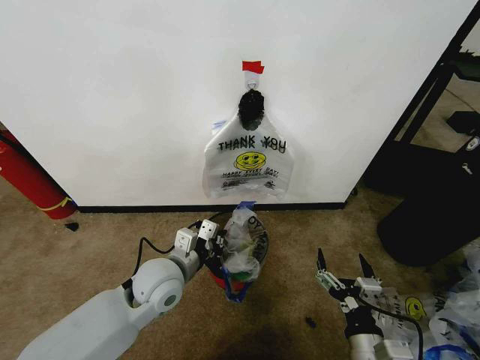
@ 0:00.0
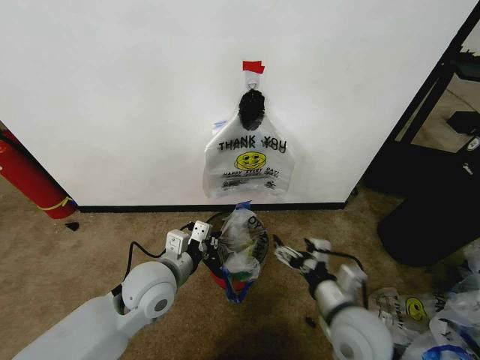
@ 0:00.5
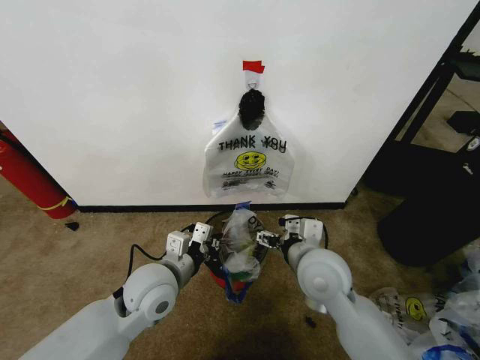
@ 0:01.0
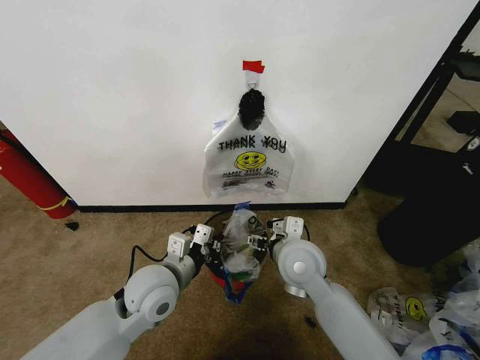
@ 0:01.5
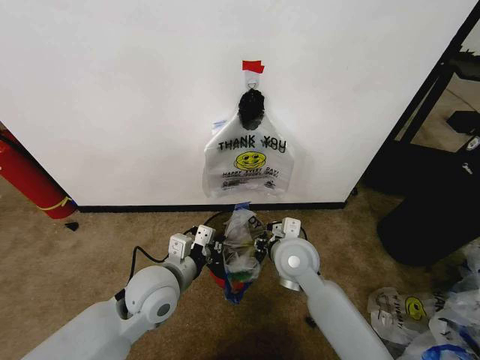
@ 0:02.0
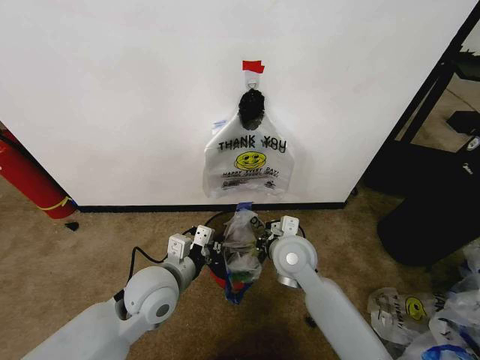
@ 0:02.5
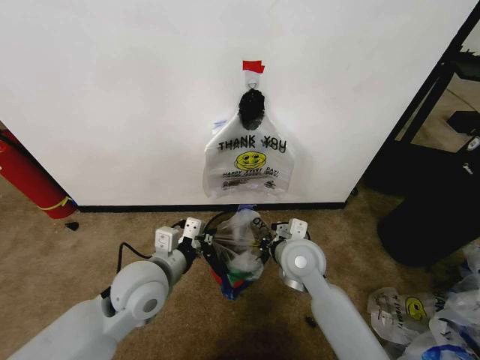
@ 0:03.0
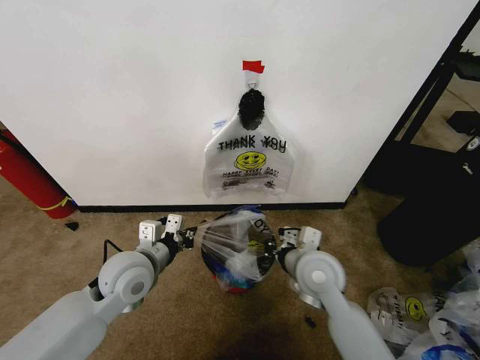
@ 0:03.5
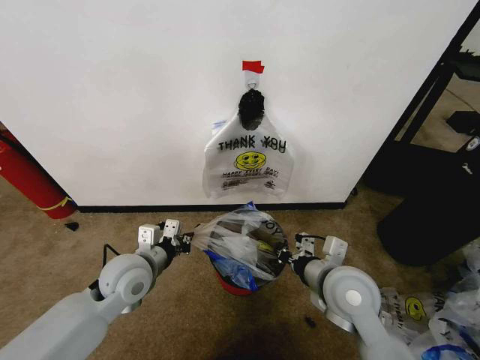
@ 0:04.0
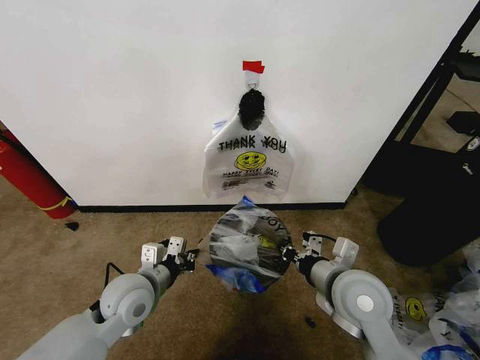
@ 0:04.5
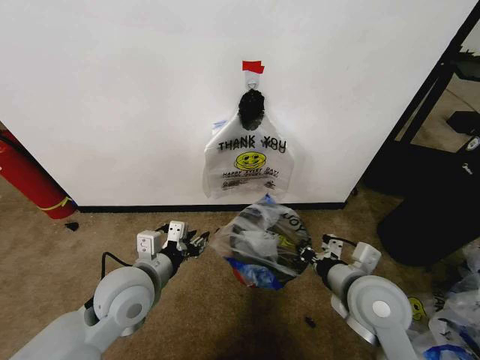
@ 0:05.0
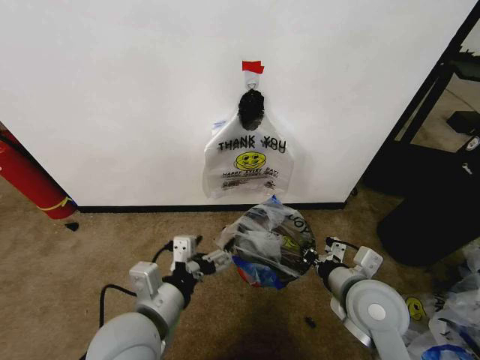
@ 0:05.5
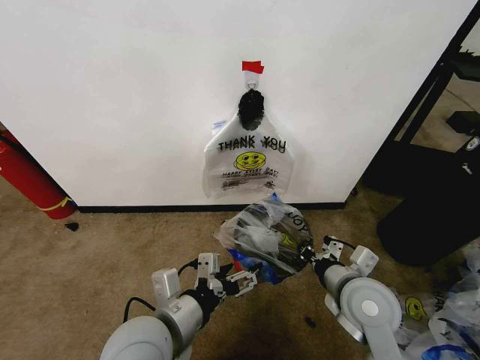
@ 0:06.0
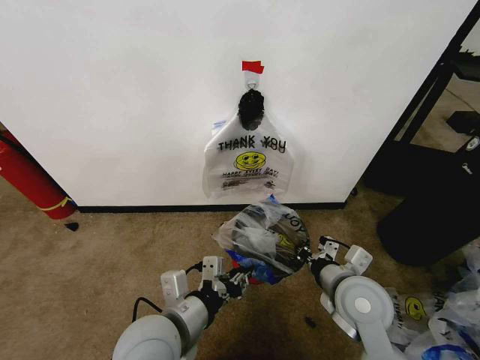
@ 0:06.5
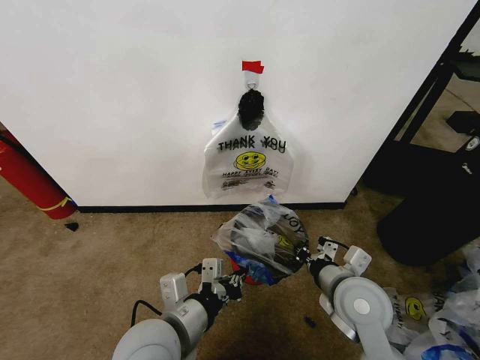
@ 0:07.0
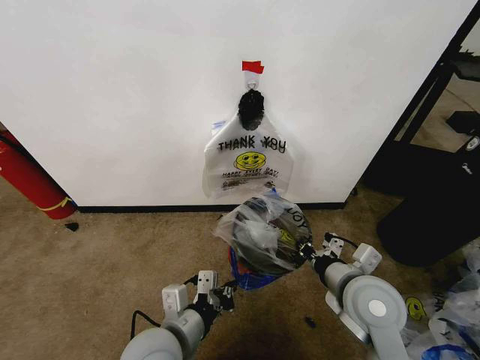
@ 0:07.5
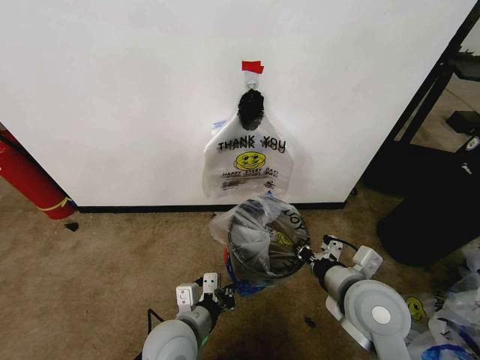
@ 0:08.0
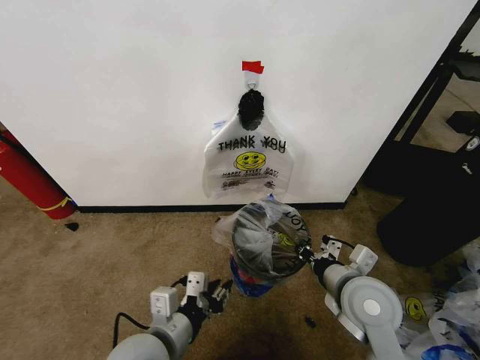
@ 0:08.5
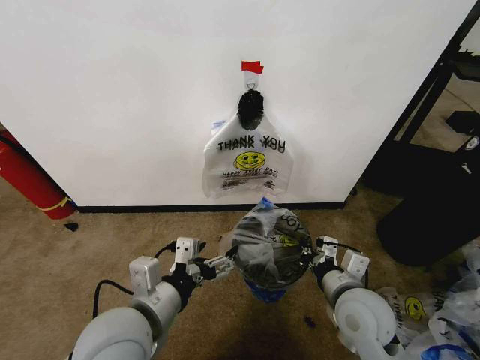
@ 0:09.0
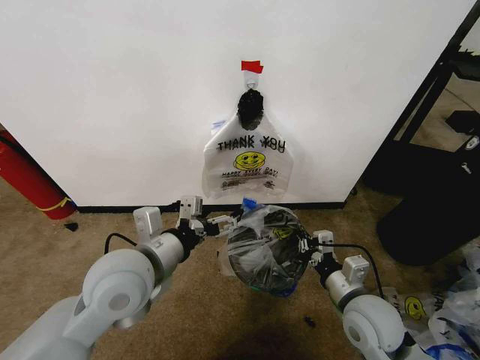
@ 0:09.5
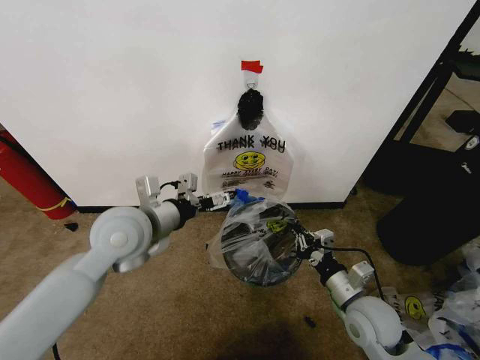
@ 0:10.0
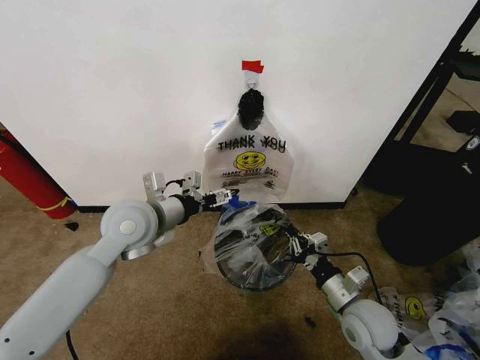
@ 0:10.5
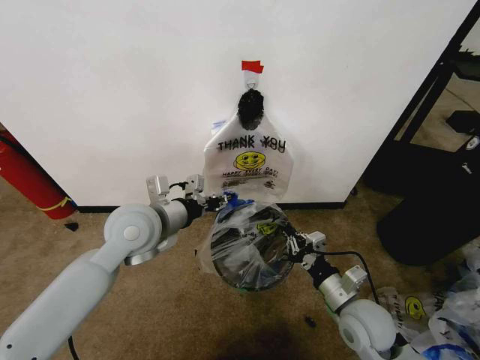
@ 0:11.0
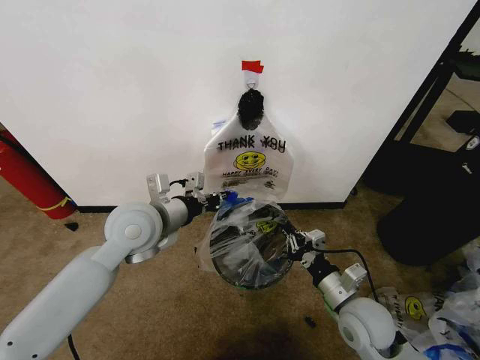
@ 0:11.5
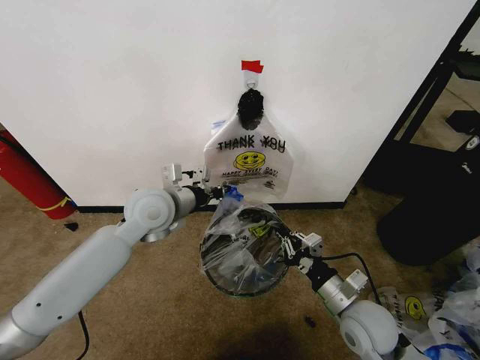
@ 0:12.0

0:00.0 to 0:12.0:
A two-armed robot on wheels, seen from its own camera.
Task of the whole recording: Pick up the garbage bag from the wall and place it over the trash bin.
0:00.0 to 0:02.0: The right gripper heads forward and to the left, covering some 25 cm, and closes.
0:02.0 to 0:04.0: The right gripper travels to the right and backward by about 10 cm, and closes up. Meanwhile the left gripper is displaced to the left by about 5 cm.
0:04.0 to 0:06.0: The left gripper heads backward and to the right, covering about 15 cm, and opens its fingers.
0:06.0 to 0:08.0: The left gripper shifts some 10 cm downward, and closes.
0:08.0 to 0:10.0: The right gripper goes approximately 10 cm downward, while the left gripper shifts approximately 25 cm upward, forward and to the left, and opens.
0:10.0 to 0:12.0: The left gripper shifts approximately 5 cm forward, and closes up.

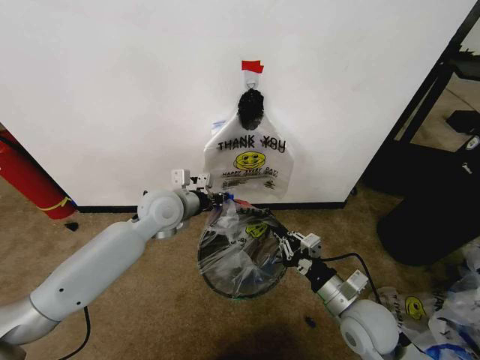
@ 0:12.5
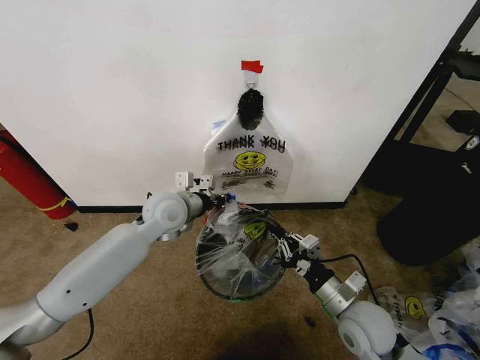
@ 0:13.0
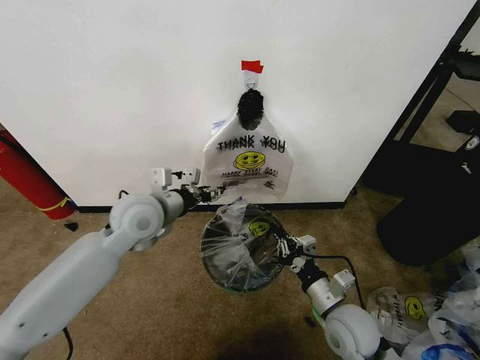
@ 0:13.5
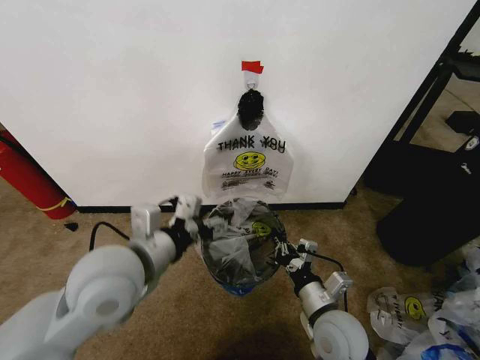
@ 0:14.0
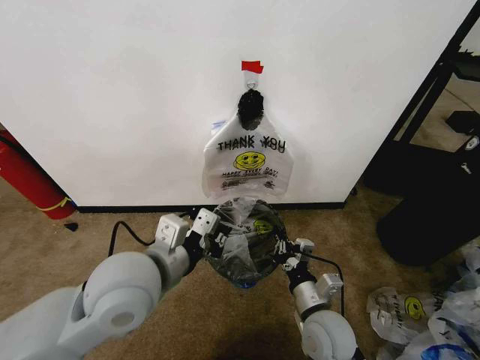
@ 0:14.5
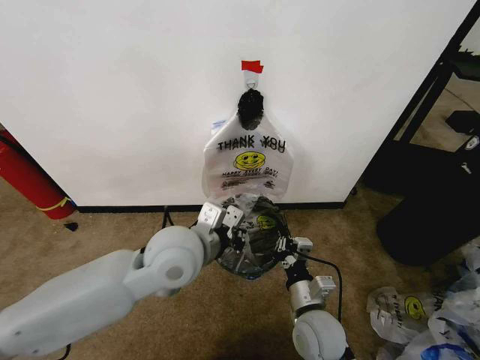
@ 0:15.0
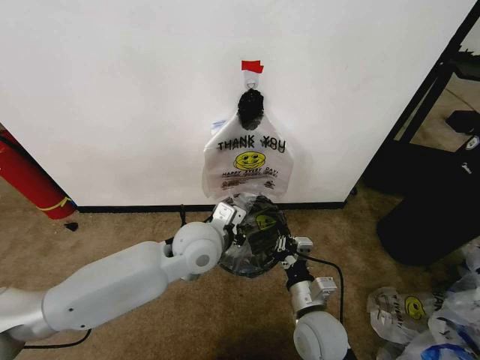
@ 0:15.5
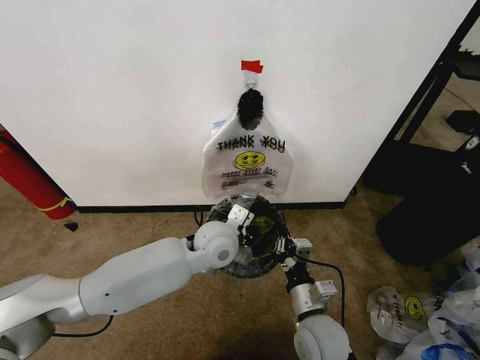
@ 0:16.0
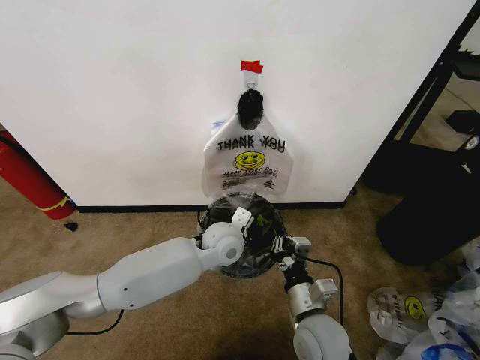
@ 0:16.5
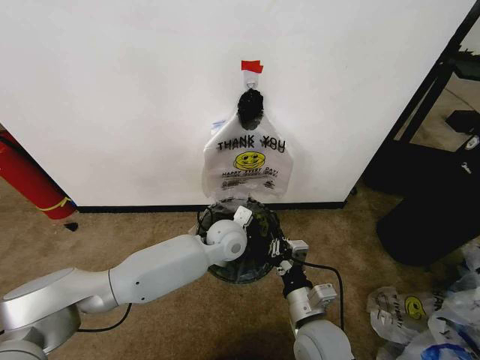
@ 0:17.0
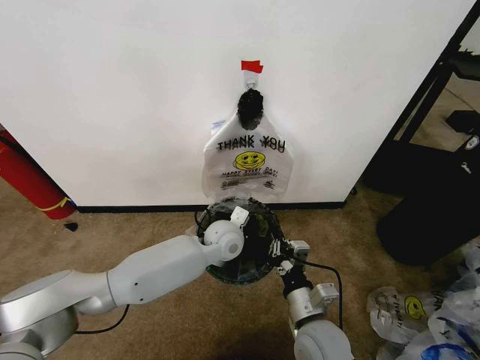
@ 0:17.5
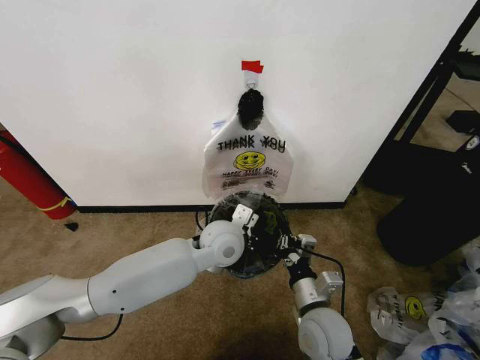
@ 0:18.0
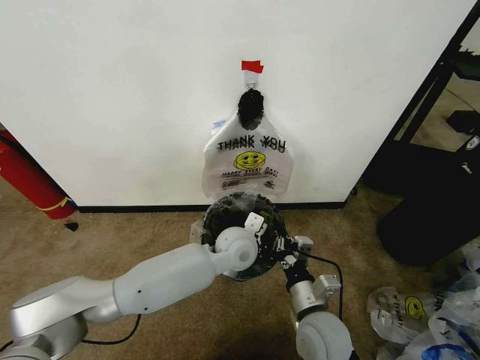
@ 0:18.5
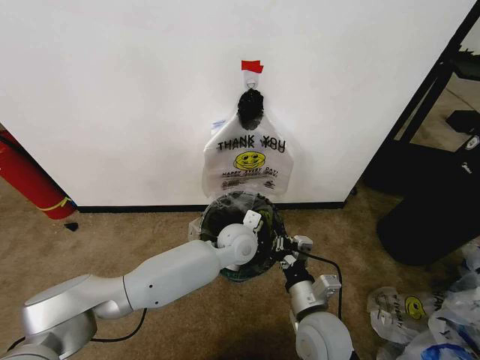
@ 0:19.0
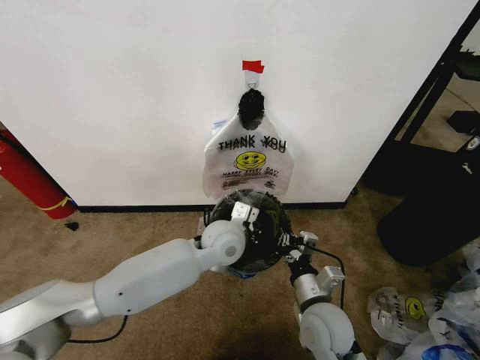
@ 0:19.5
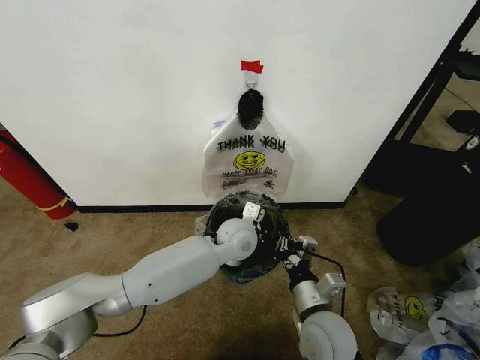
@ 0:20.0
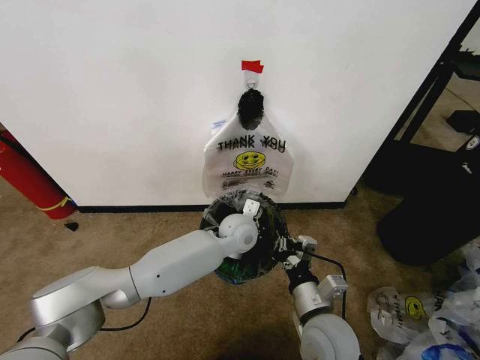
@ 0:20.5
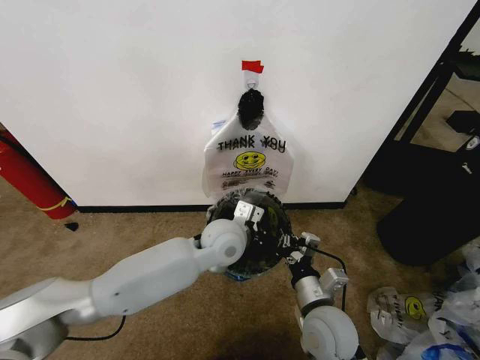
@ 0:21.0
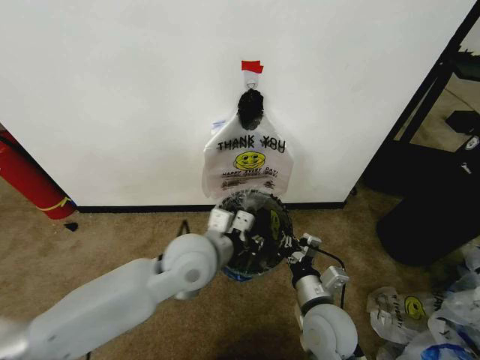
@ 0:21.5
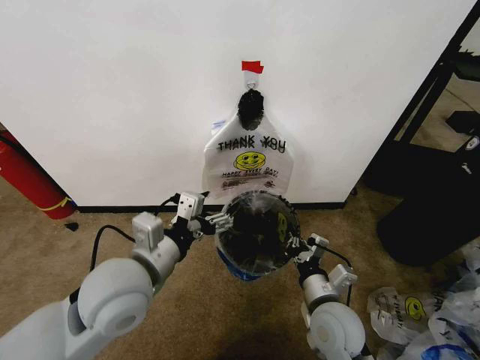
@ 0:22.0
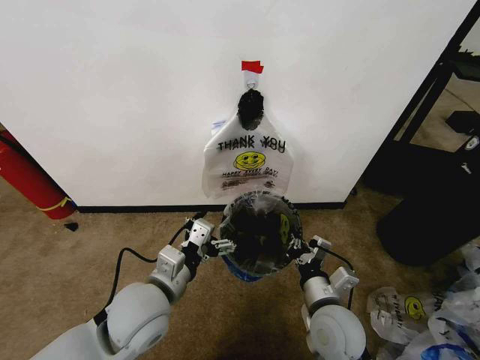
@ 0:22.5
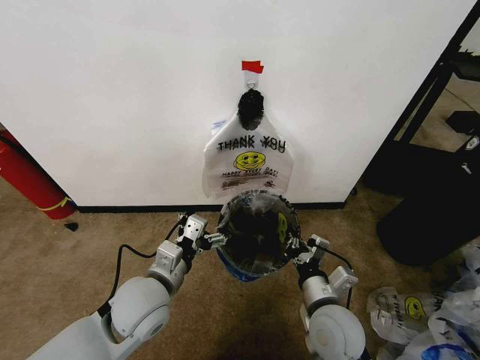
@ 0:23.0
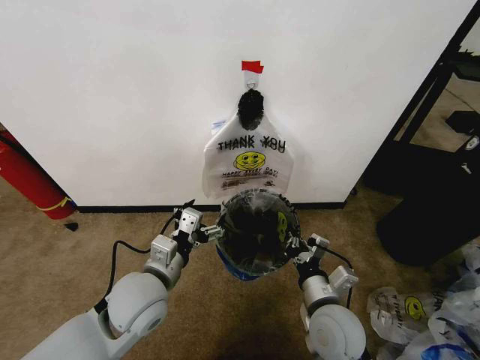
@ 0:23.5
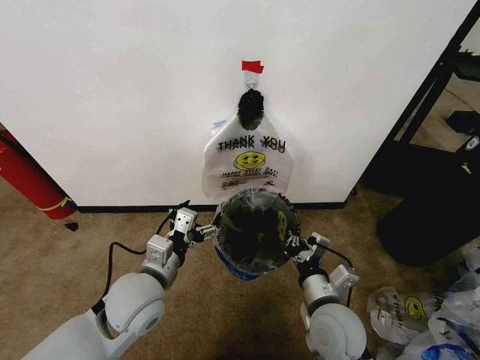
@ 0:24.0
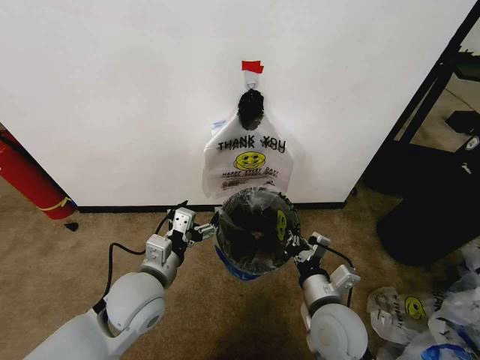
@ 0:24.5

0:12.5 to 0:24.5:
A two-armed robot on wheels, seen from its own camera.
Task of the whole recording: Pick up the garbage bag from the wall and place it over the trash bin.
0:12.5 to 0:14.5: The left gripper moves backward, some 20 cm, and opens, then closes once more. Meanwhile the right gripper moves to the left, roughly 10 cm.
0:14.5 to 0:16.5: The left gripper goes some 25 cm forward, downward and to the right.
0:16.5 to 0:18.5: The grippers stay close to where they were, moving slightly.
0:18.5 to 0:20.5: The left gripper is displaced forward by roughly 5 cm.
0:20.5 to 0:22.5: The left gripper shifts some 25 cm backward and to the left, and opens.
0:22.5 to 0:24.5: The grippers move only a little.

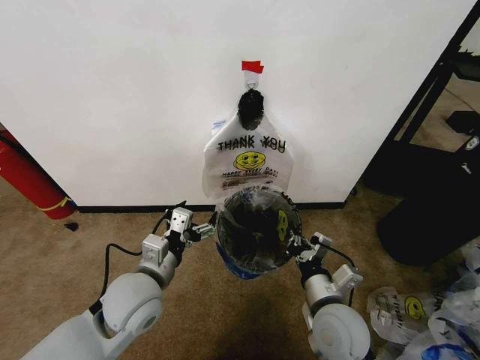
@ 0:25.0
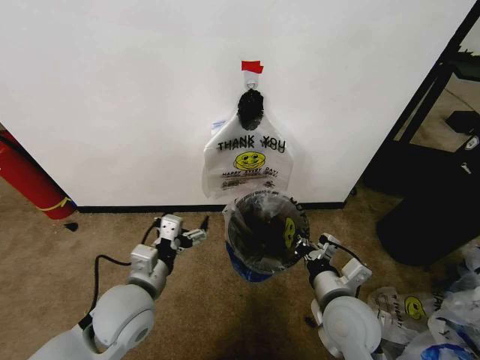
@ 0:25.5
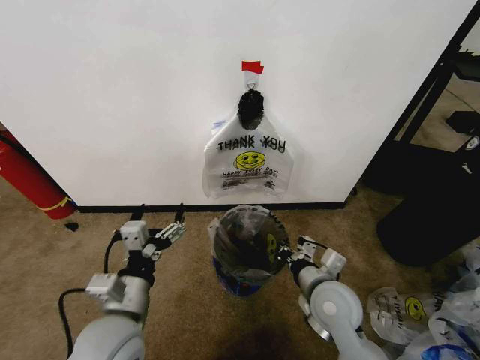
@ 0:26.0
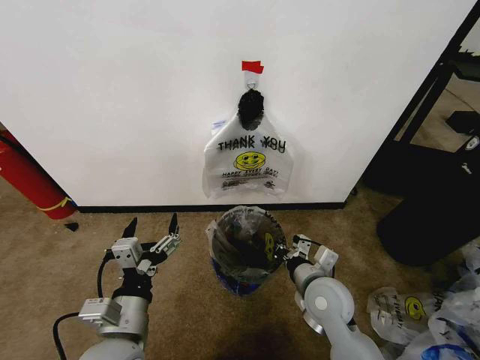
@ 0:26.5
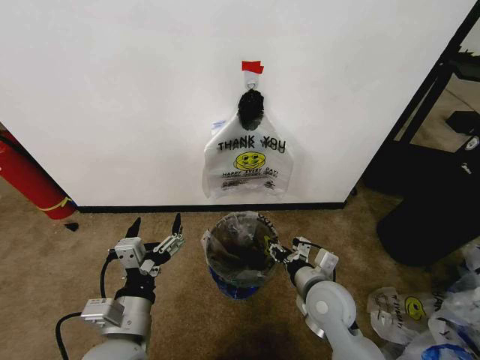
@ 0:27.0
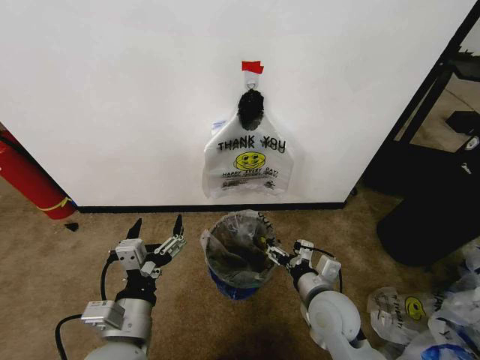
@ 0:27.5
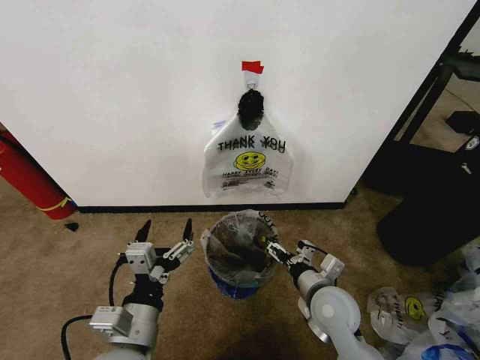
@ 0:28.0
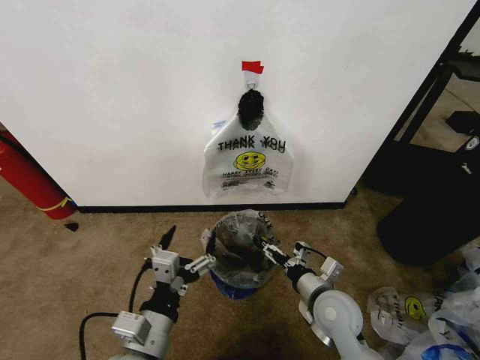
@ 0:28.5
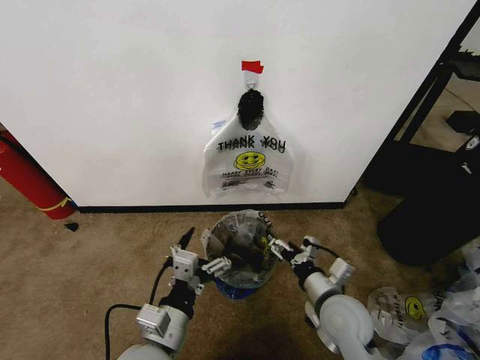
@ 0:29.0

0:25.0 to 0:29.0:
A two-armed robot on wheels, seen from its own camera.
Task of the whole recording: Pick up the garbage bag from the wall and place it over the trash bin.
0:25.0 to 0:27.0: The left gripper goes approximately 10 cm backward, while the right gripper goes roughly 5 cm forward, and opens.
0:27.0 to 0:29.0: The right gripper opens.
